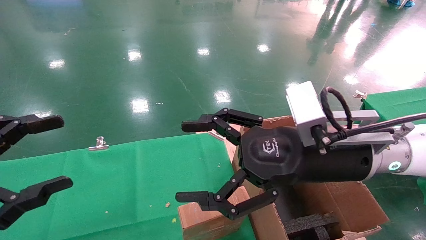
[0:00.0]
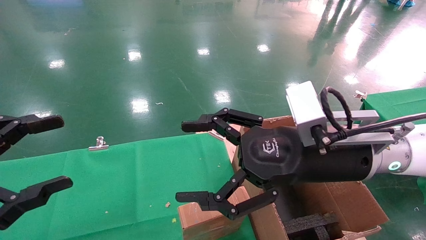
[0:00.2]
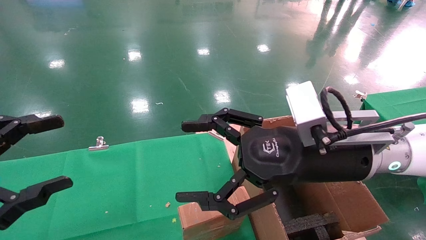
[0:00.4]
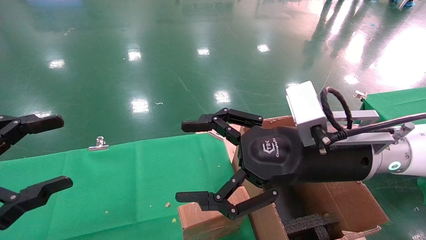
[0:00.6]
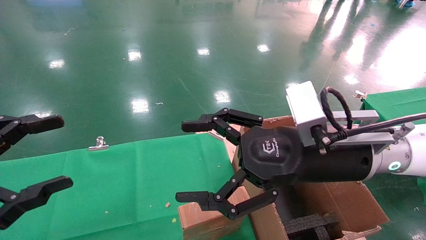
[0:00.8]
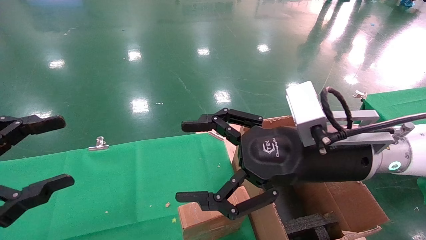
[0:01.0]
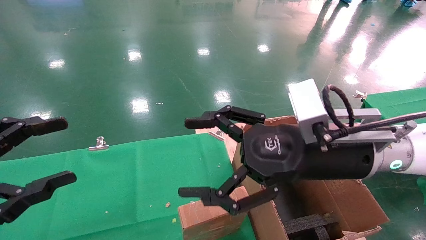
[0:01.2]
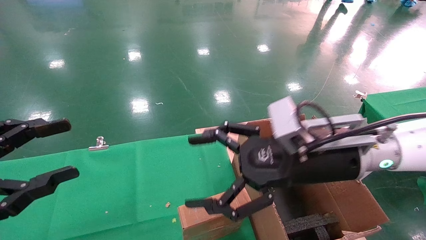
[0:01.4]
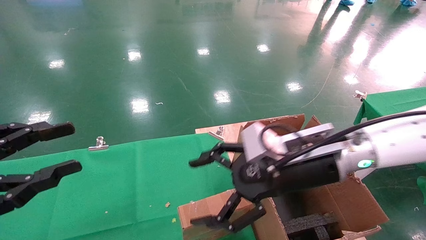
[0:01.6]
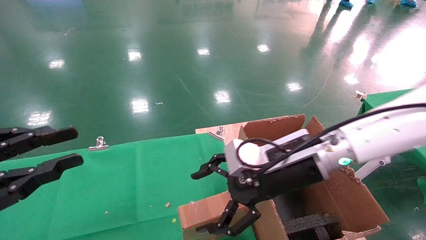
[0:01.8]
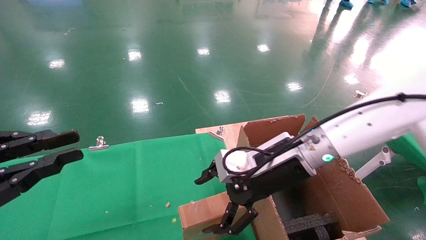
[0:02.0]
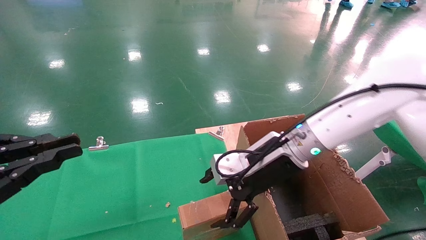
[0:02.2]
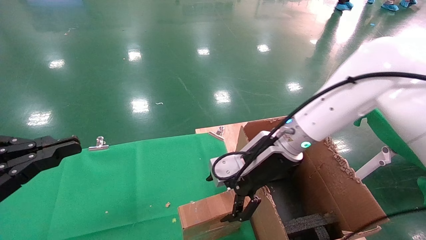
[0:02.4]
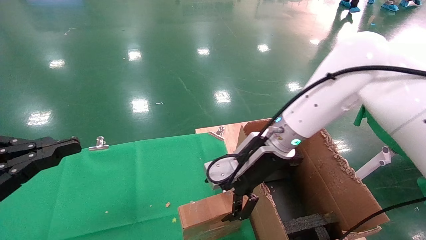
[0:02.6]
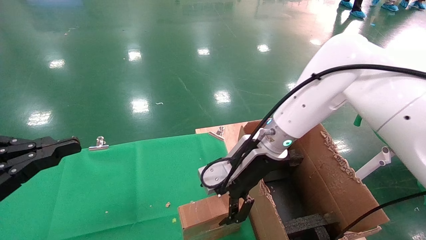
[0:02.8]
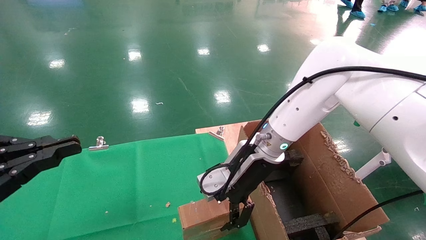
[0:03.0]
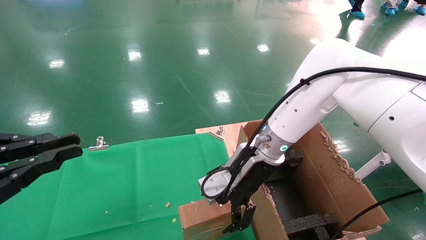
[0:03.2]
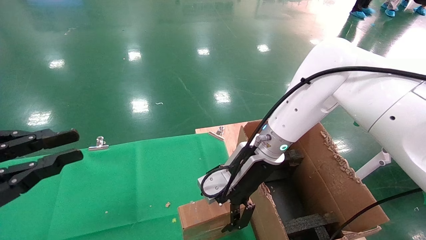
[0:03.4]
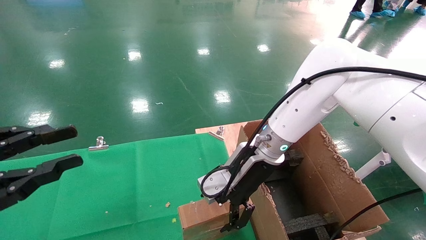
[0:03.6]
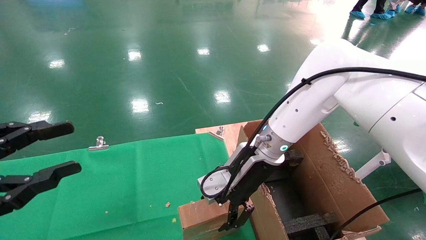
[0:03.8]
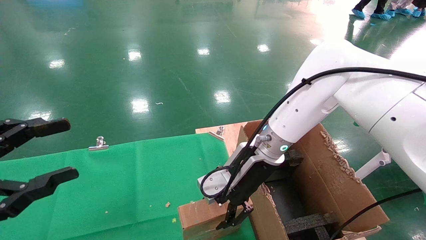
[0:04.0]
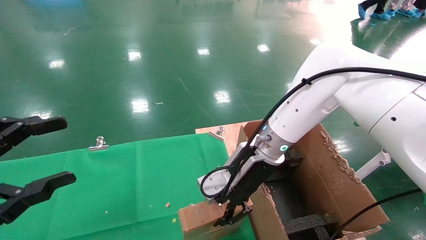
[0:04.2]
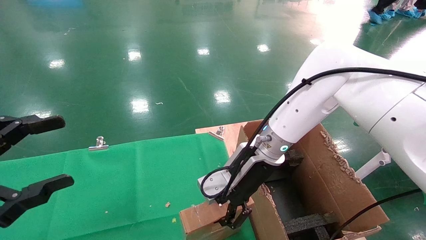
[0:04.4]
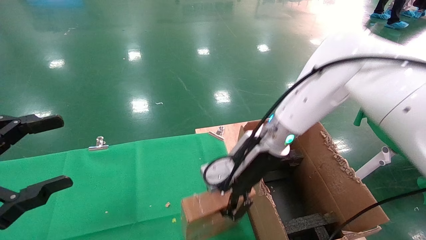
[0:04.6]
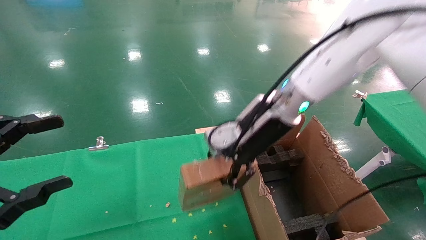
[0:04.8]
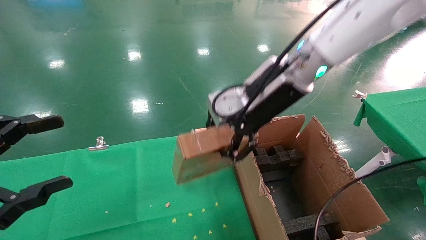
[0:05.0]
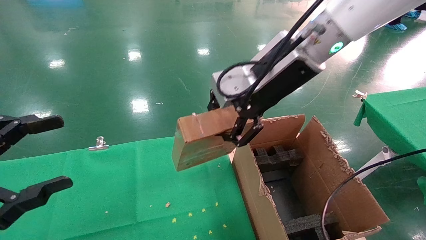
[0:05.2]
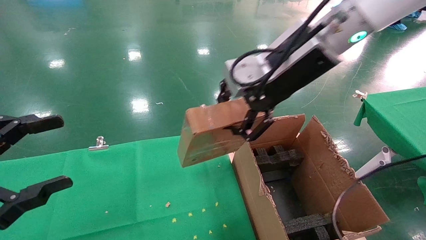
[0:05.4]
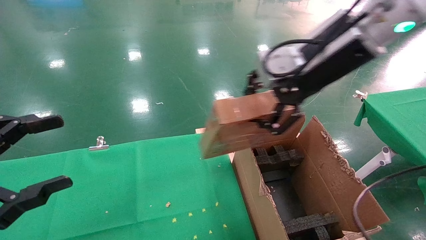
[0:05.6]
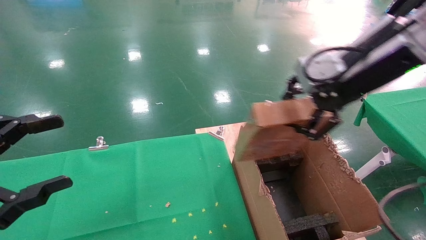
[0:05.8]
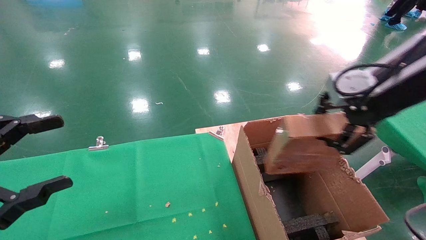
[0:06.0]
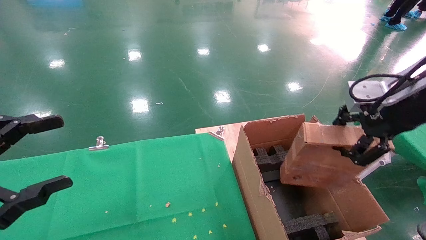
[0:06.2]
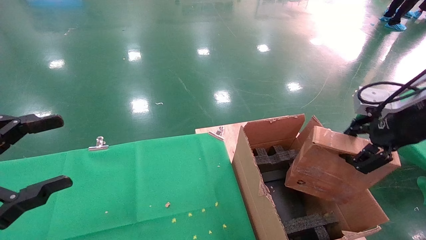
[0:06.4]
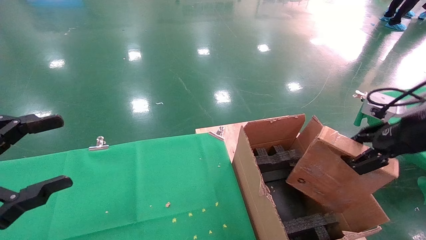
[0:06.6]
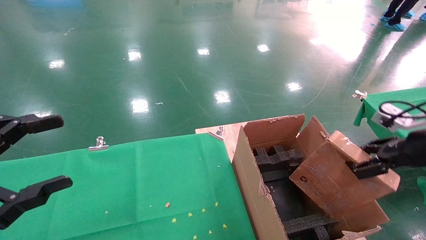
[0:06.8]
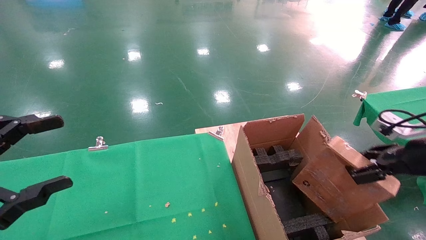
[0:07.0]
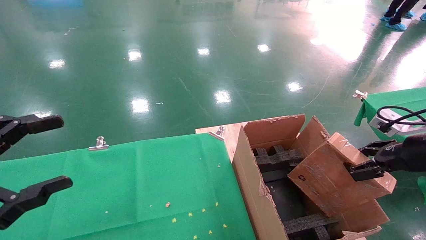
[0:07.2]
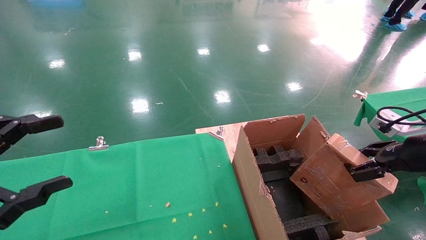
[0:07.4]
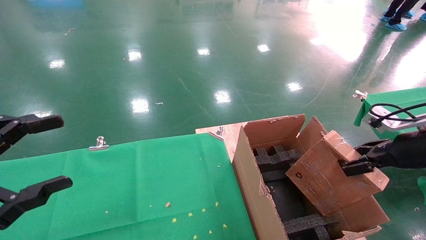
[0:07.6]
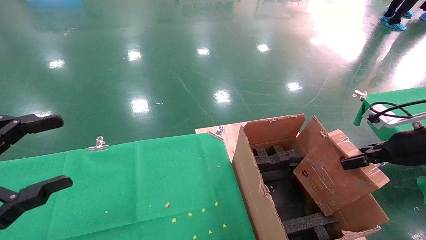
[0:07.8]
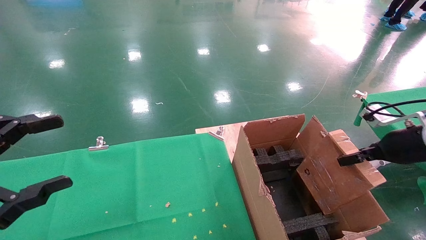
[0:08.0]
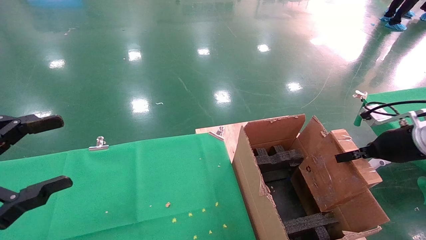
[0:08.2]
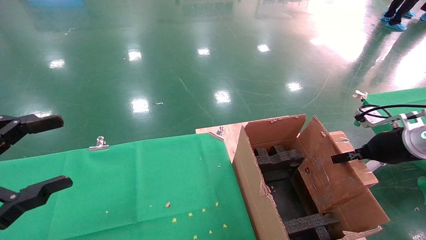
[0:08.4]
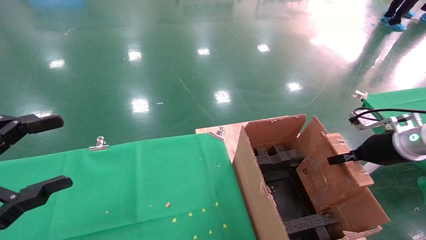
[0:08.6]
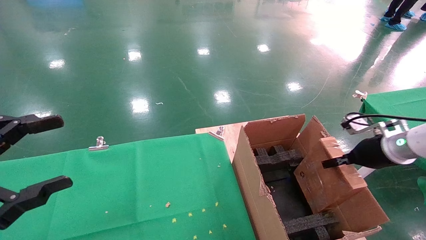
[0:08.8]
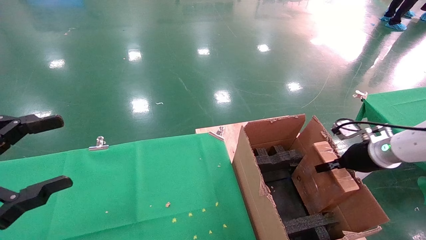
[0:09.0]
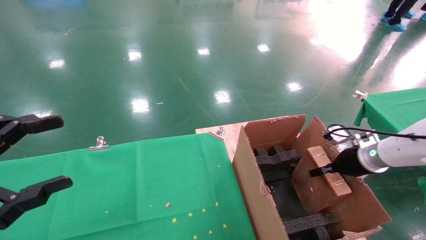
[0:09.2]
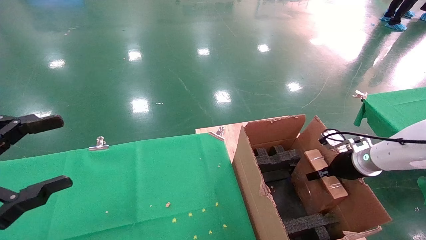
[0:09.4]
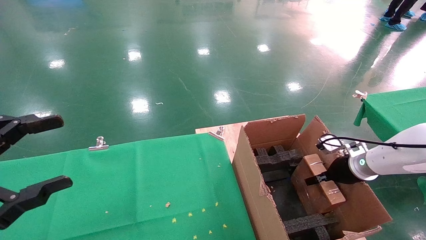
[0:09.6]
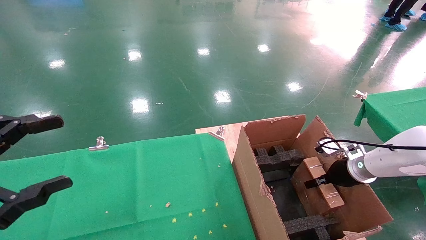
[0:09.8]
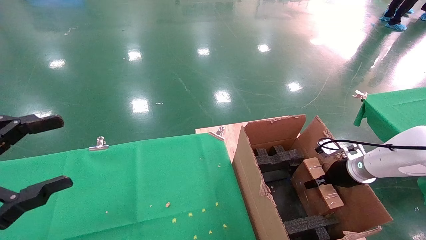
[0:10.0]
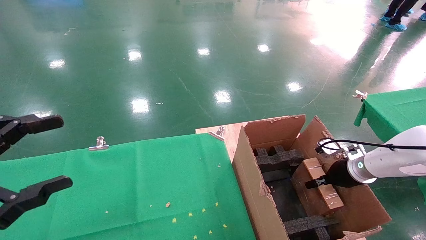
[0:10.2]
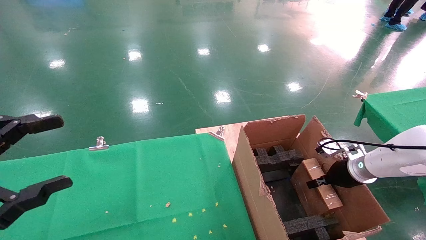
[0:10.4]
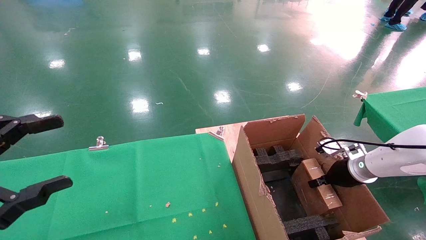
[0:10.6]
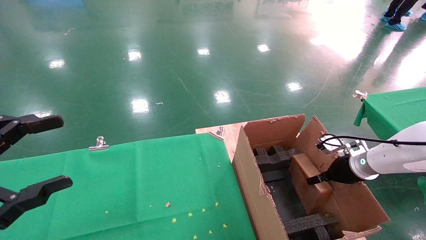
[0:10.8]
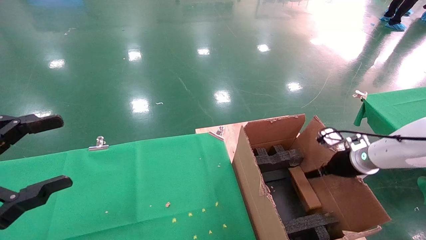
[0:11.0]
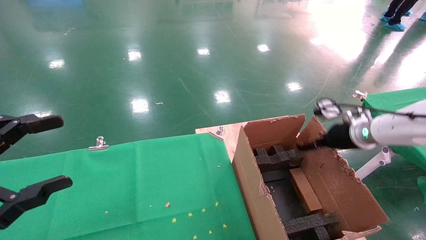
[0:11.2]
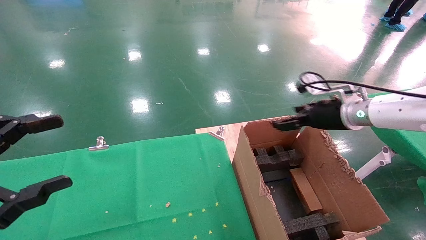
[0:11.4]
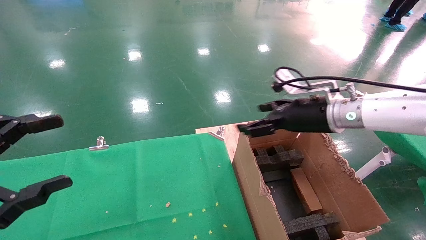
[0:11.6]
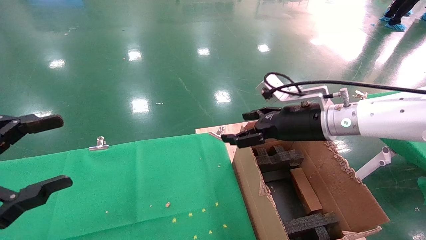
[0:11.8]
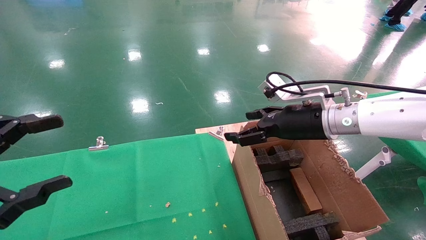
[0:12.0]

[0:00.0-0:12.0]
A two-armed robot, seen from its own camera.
Task of the whole recording: using a robotic arm to pick up a cardboard box and palace it the carton.
Step, 0:01.4 to 0:04.4: Pick up the mouse and the power cord paper box.
Step, 0:04.6 to 0:11.2: Place the mouse and the power cord paper box into the container.
0:00.0 to 0:01.6: The left gripper closes its fingers, while the right gripper moves some 5 cm.
0:01.6 to 0:03.0: The right gripper goes approximately 10 cm forward and to the left. Meanwhile the left gripper closes its fingers.
0:03.0 to 0:04.4: The right gripper closes; the left gripper opens up.
0:04.4 to 0:06.0: The right gripper goes about 30 cm to the right, upward and backward.
0:06.0 to 0:07.6: The right gripper shifts about 20 cm downward and to the right.
0:07.6 to 0:09.0: The right gripper heads forward and downward, covering approximately 10 cm.
0:09.0 to 0:10.4: The right gripper moves downward, roughly 5 cm.
0:10.4 to 0:12.0: The right gripper shifts approximately 25 cm to the left and upward, and opens its fingers.

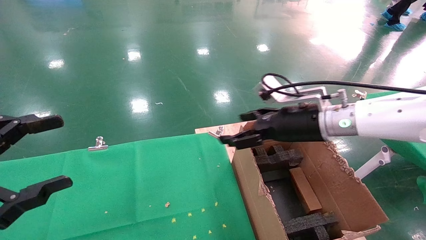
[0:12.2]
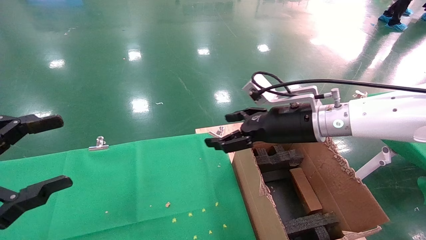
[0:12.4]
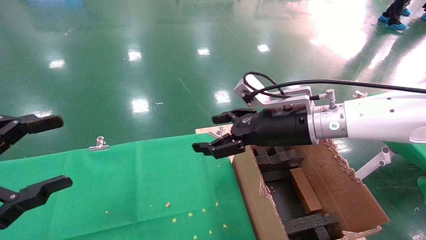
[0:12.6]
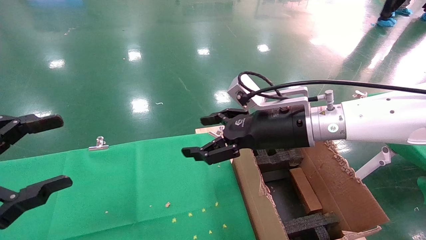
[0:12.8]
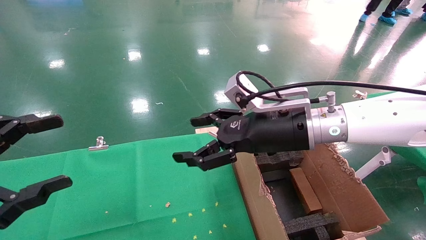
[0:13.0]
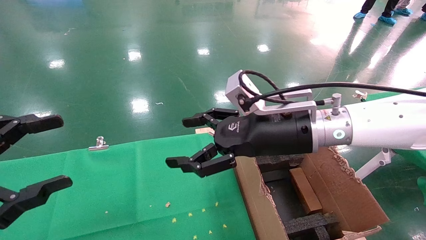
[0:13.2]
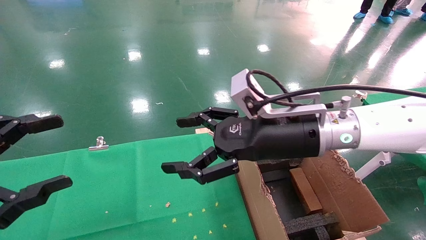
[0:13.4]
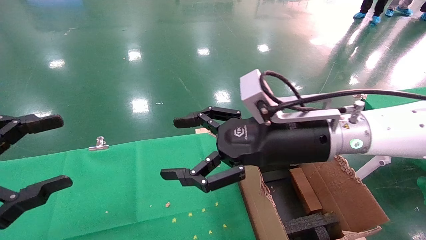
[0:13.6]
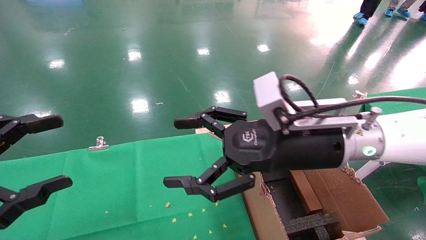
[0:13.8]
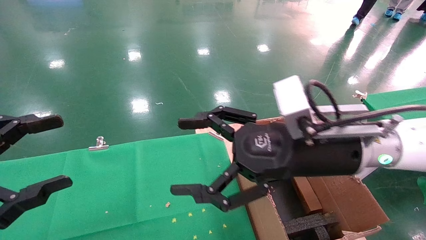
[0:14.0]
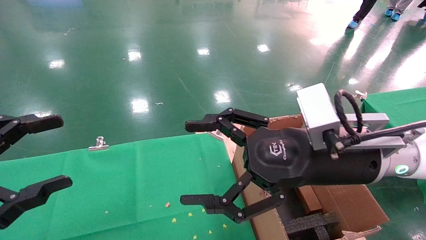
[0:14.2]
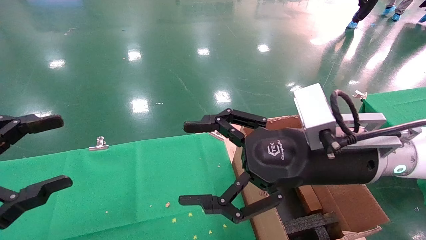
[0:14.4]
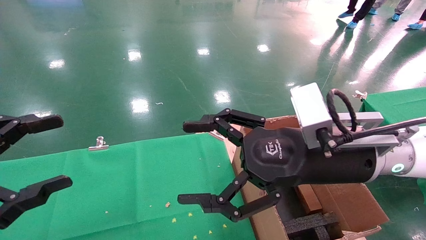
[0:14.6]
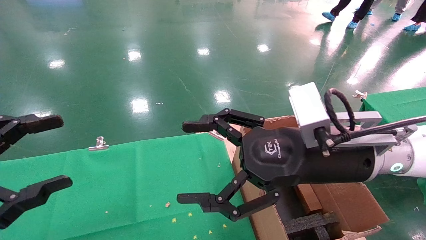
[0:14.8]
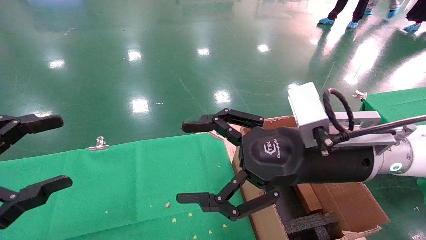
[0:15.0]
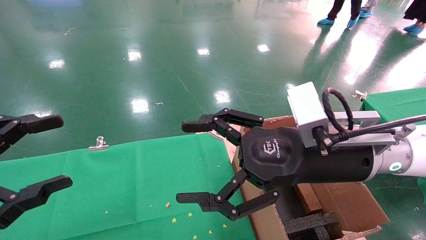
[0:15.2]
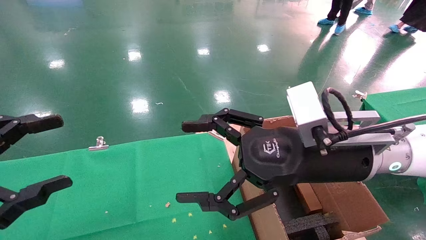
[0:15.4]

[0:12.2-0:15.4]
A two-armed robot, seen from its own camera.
Task of the whole recording: using a robotic arm to pick up a cardboard box and palace it the carton.
0:12.2 to 0:13.8: The right gripper moves backward and to the left, some 10 cm.

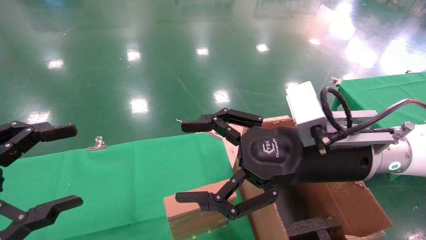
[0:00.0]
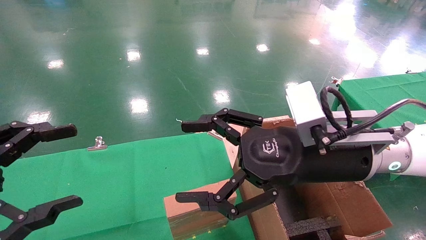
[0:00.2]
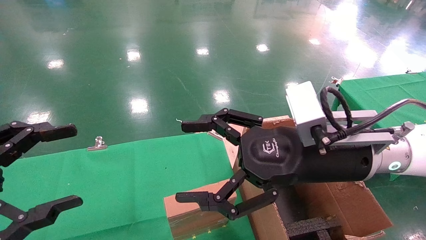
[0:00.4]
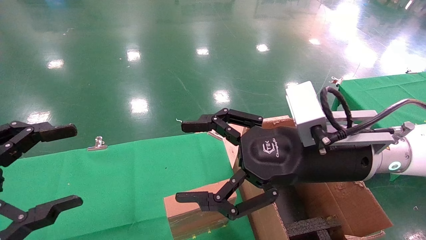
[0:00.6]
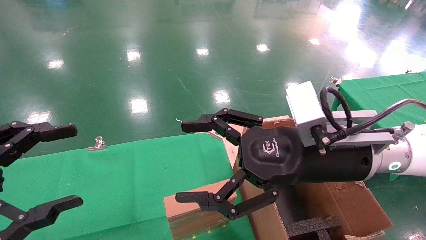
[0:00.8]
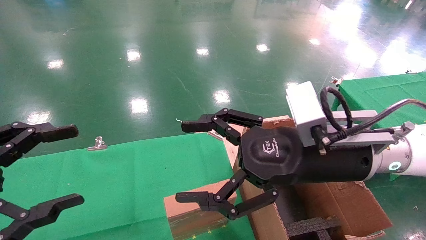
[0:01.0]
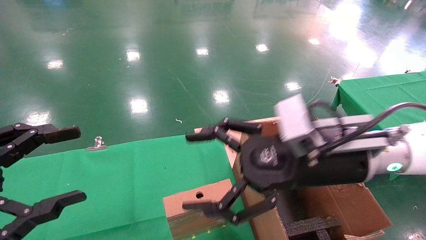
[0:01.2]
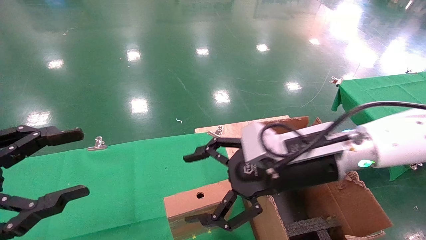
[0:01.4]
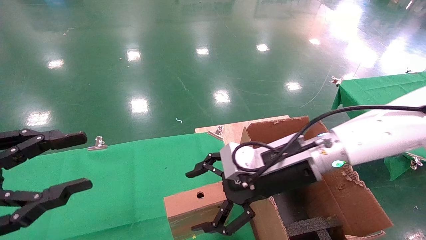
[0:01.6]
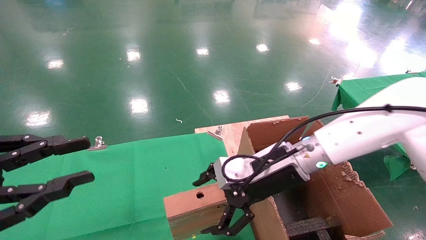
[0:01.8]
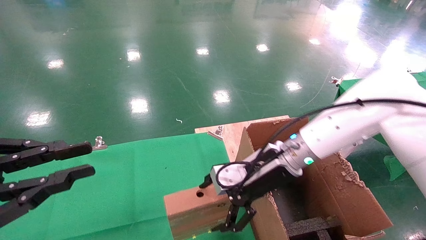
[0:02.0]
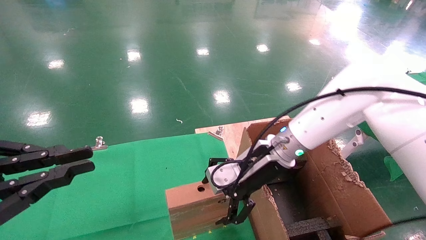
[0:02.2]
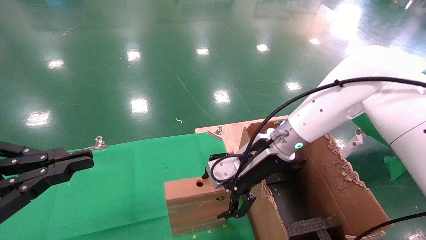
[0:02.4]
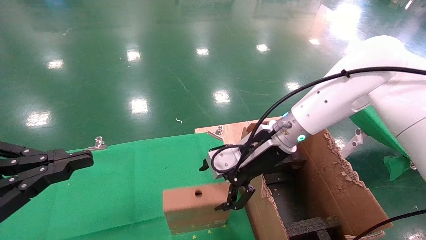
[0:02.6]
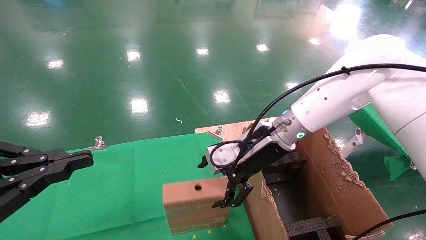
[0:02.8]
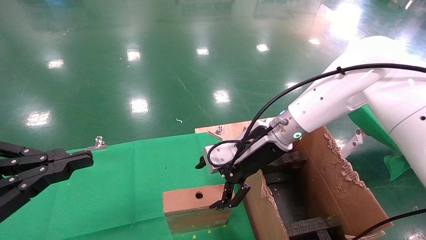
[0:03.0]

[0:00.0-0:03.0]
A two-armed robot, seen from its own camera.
Task of the whole recording: using a robotic arm to pick up a cardboard box and palace it the carton.
0:00.0 to 0:01.6: The right gripper travels forward by about 5 cm.
0:01.6 to 0:03.0: The right gripper shifts some 5 cm forward, while the left gripper closes its fingers.
